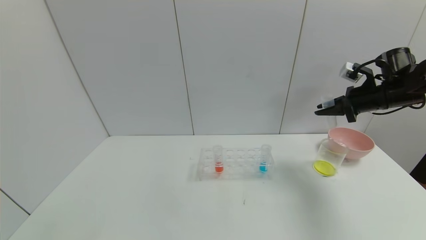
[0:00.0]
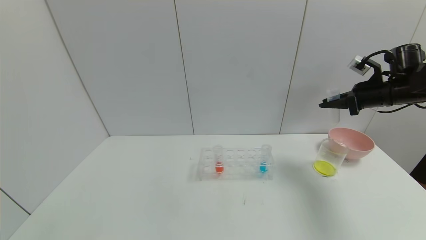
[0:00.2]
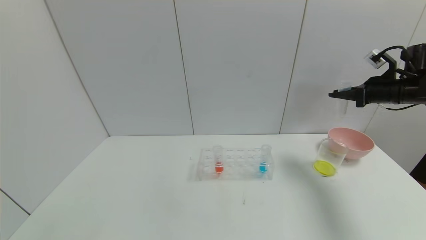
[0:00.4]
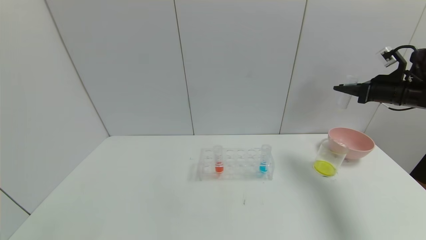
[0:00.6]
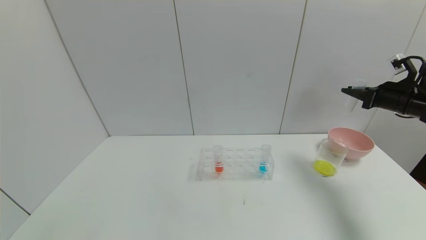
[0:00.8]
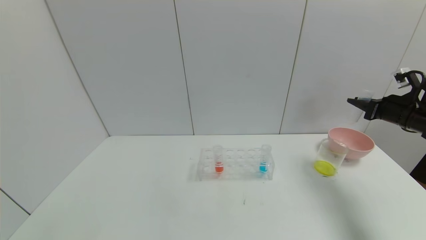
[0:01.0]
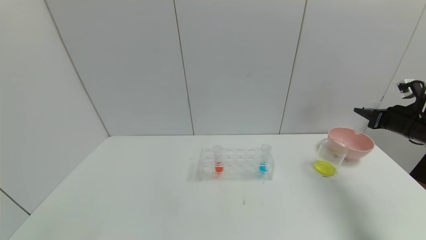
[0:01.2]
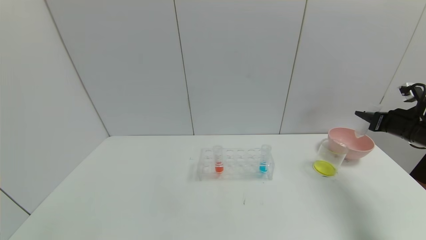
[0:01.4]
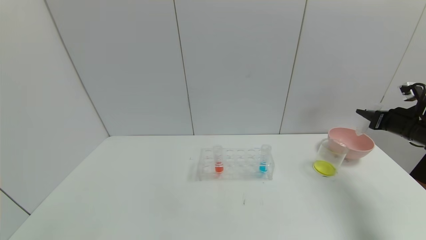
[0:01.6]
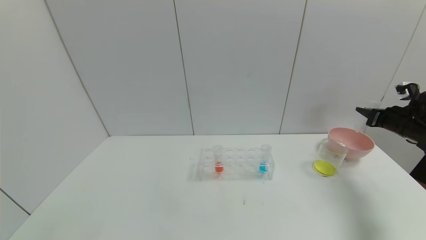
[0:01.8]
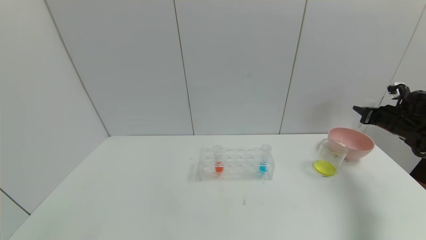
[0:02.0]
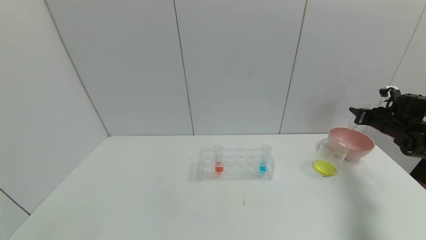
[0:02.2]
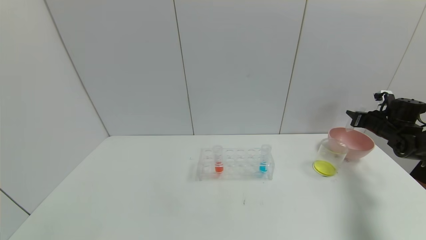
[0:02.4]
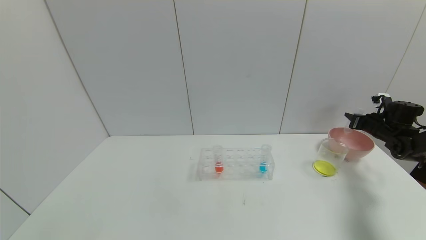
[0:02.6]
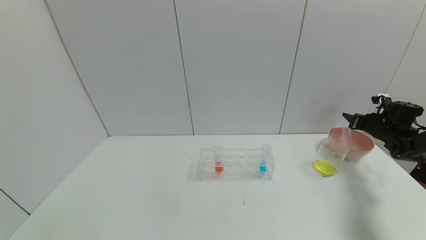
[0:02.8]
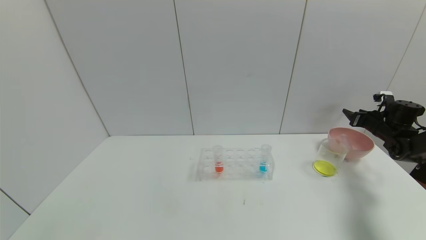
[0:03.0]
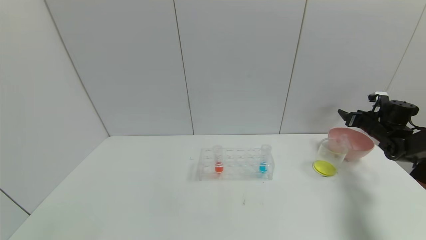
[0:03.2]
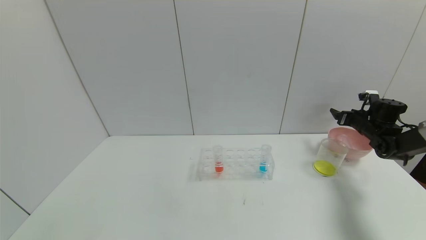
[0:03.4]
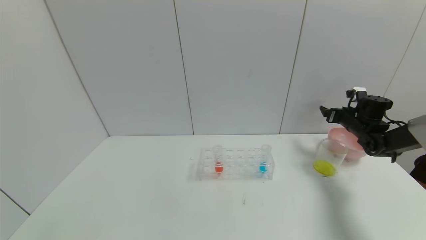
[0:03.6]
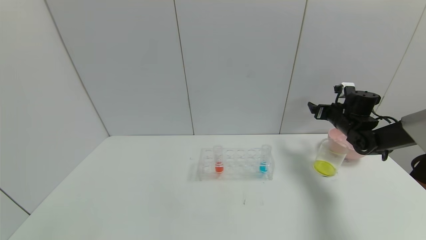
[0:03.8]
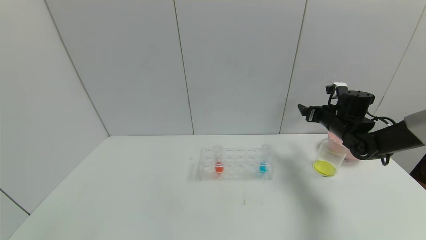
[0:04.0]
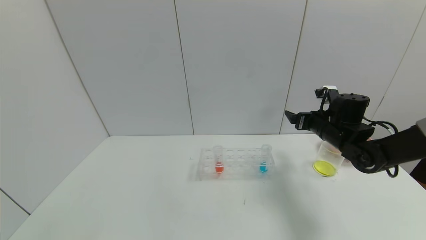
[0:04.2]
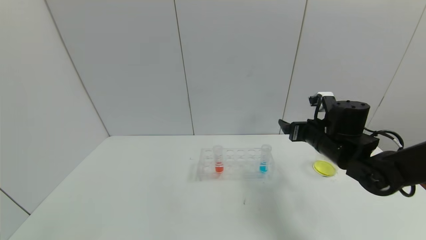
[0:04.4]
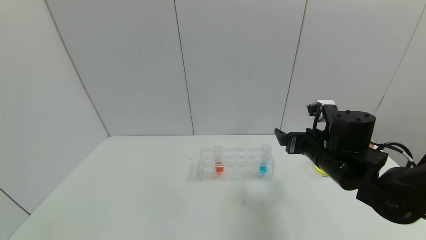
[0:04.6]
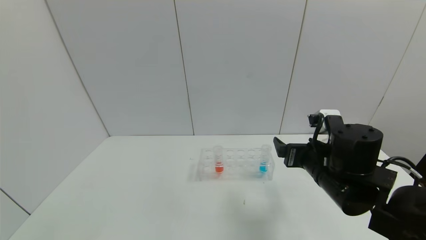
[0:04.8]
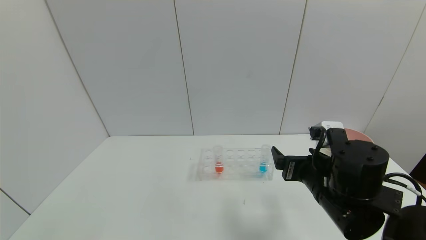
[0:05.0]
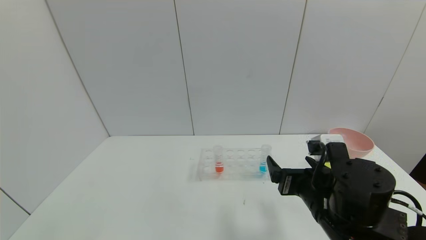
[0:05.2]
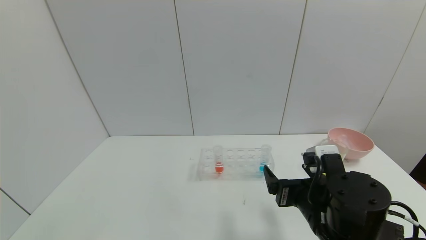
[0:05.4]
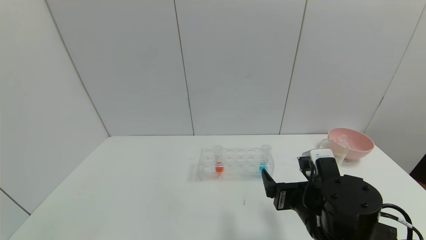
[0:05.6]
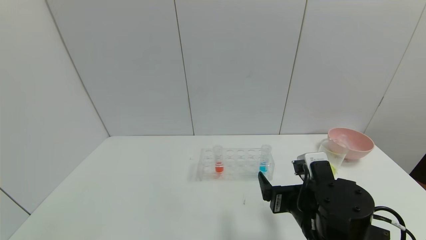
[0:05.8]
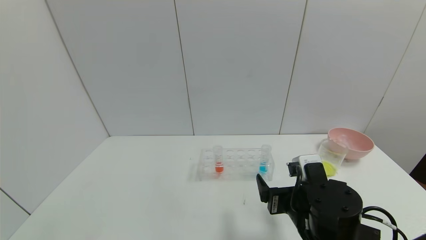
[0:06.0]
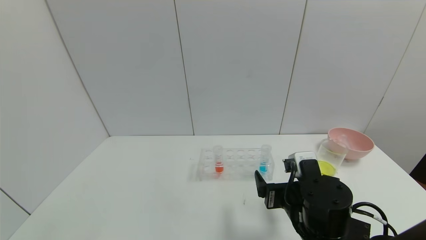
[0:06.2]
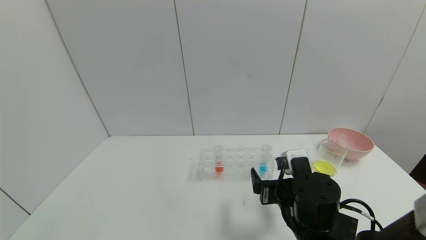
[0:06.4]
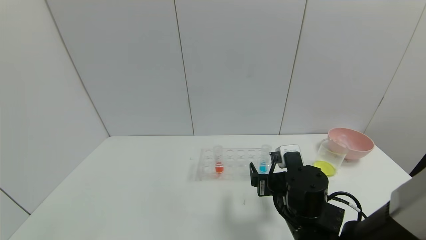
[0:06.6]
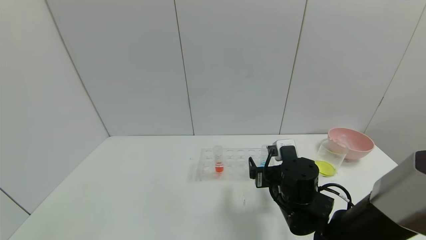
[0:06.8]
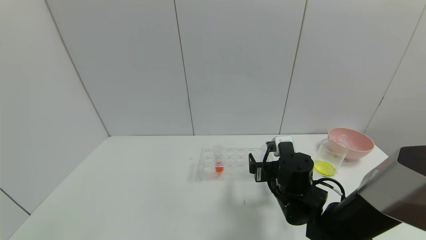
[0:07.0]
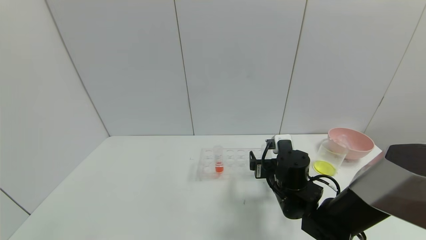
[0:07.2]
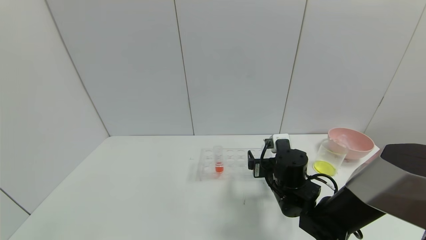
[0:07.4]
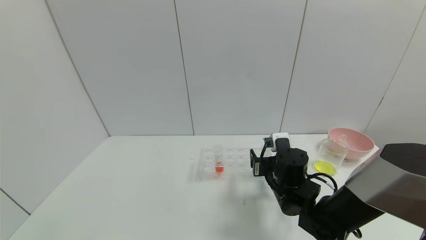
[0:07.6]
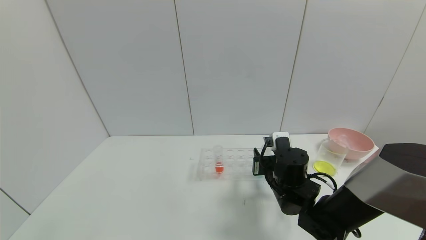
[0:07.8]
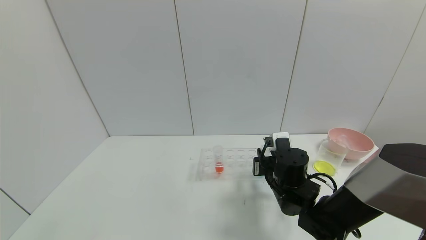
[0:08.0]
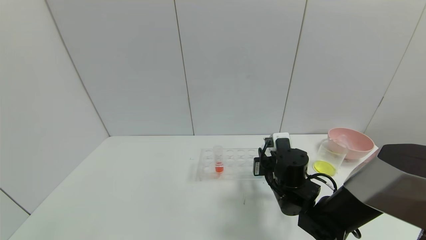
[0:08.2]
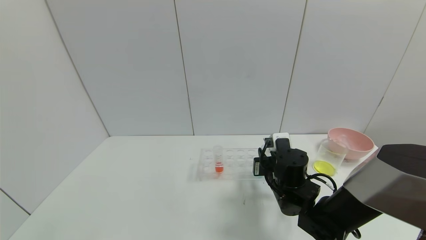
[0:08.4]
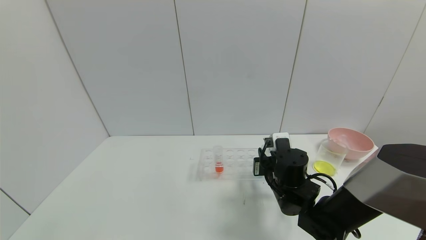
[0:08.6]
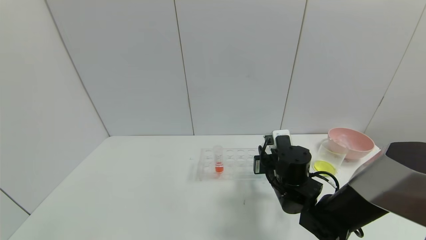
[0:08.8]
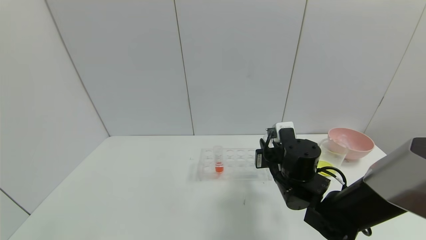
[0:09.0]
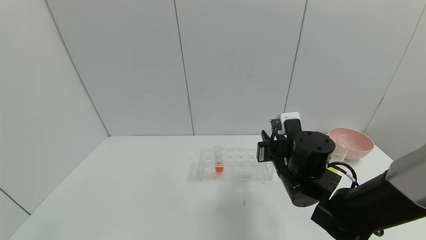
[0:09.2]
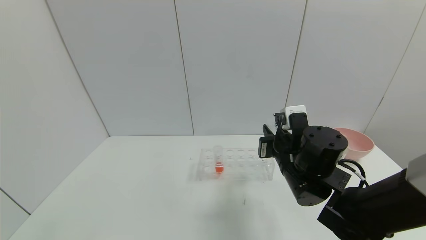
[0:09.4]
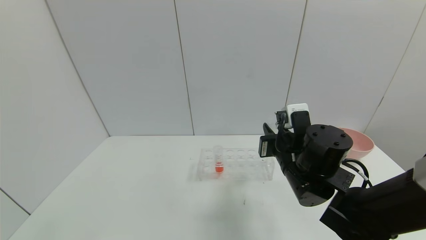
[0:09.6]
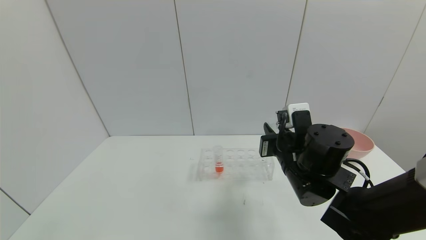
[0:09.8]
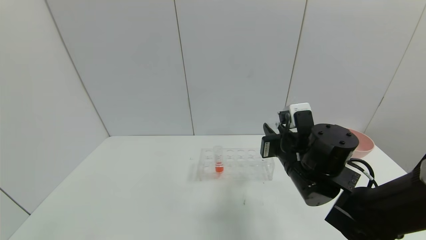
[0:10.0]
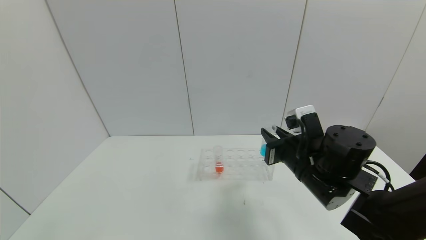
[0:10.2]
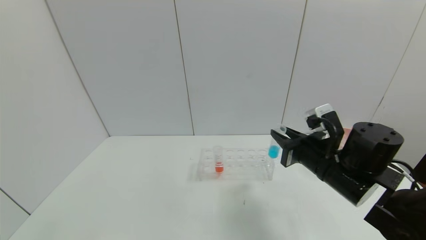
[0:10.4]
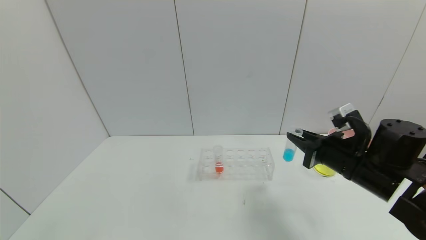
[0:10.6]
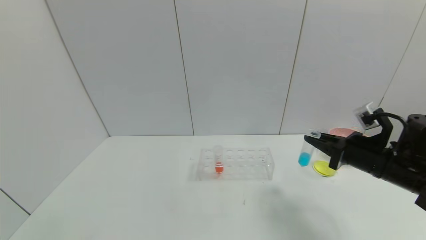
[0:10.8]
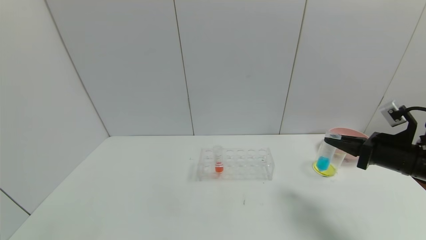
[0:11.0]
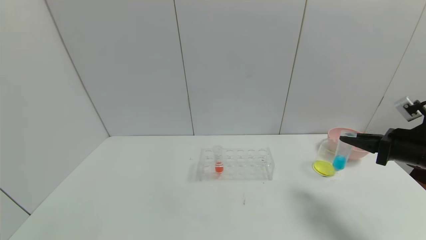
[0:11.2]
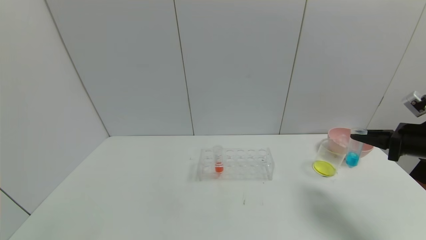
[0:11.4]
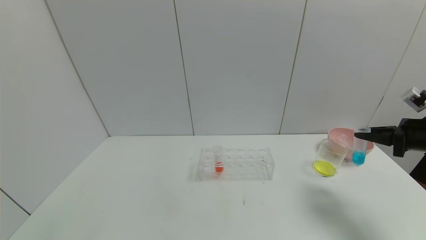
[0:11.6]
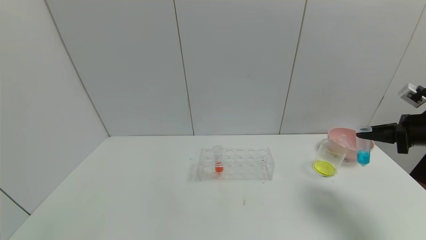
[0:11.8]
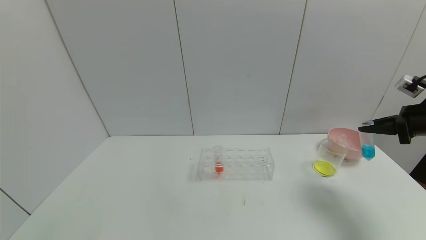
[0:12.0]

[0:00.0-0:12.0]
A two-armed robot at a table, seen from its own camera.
Task of the whole recording: pick up the test tube with yellow pigment and the test tube with blue pigment by grippers and pour them into the beaker.
Step, 0:01.0 to 0:04.4: Place the test tube into the bowl with right gripper.
Step, 0:04.6 to 0:10.8: Pick up the test tube containing the blue reagent with right gripper.
0:00.0 to 0:01.6: The right gripper is displaced to the right and downward by some 10 cm.
0:01.6 to 0:03.0: The right gripper shifts about 10 cm forward and downward, and opens its fingers.
0:03.0 to 0:04.4: The right gripper shifts about 30 cm to the left and backward, and opens its fingers.
0:04.4 to 0:06.0: The right gripper travels backward and to the left by roughly 15 cm.
0:06.0 to 0:07.6: The right gripper goes approximately 10 cm forward.
0:07.6 to 0:09.0: The right gripper closes its fingers.
0:09.0 to 0:10.4: The right gripper is displaced to the right and upward by about 10 cm.
0:10.4 to 0:12.0: The right gripper travels to the right by approximately 25 cm.

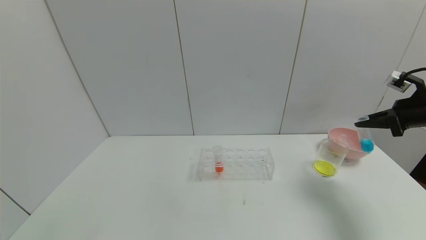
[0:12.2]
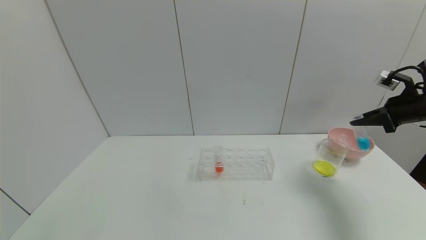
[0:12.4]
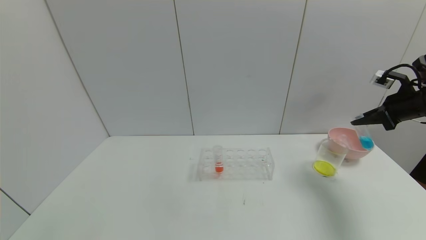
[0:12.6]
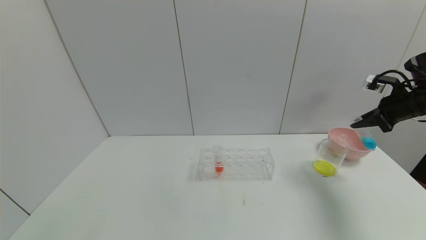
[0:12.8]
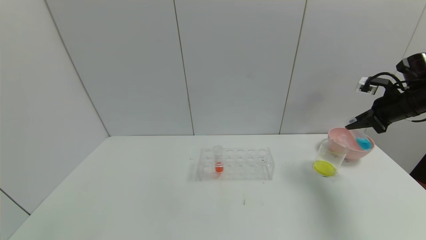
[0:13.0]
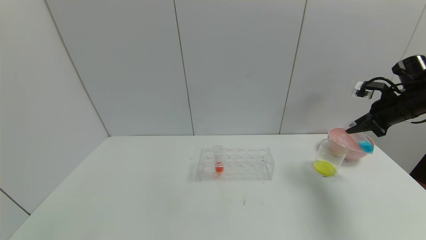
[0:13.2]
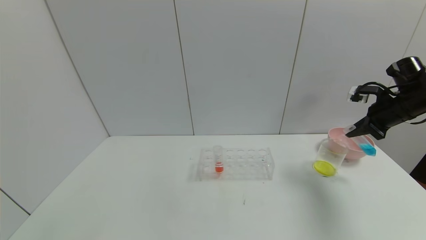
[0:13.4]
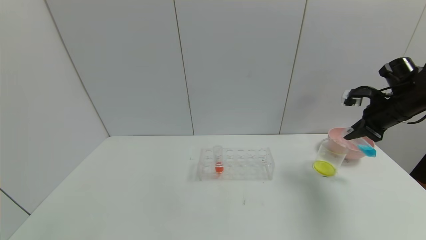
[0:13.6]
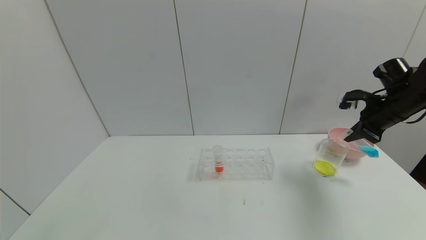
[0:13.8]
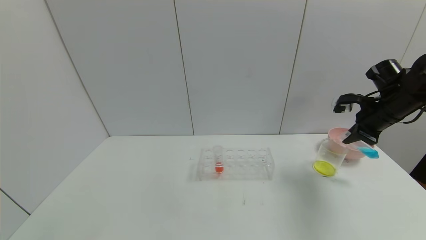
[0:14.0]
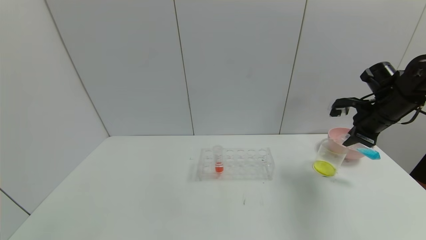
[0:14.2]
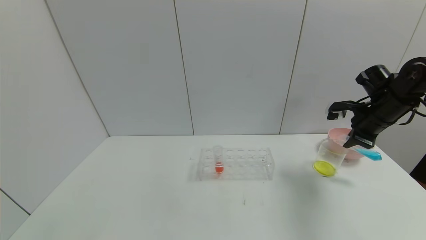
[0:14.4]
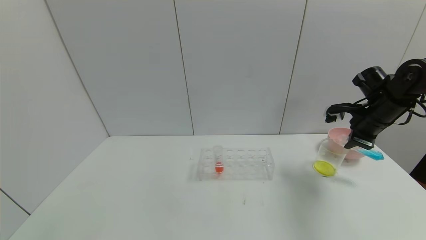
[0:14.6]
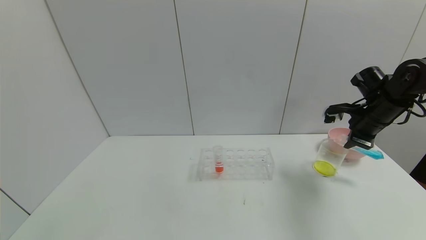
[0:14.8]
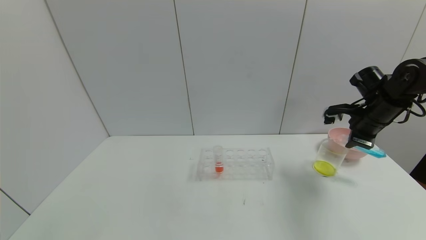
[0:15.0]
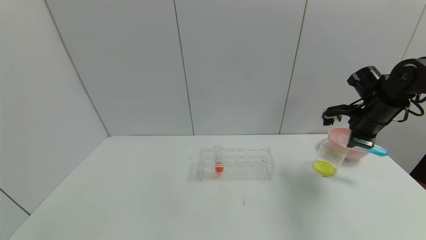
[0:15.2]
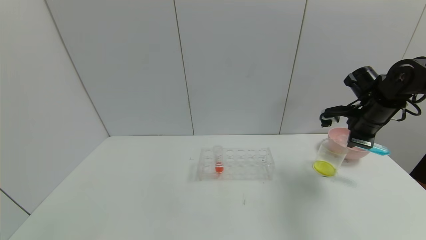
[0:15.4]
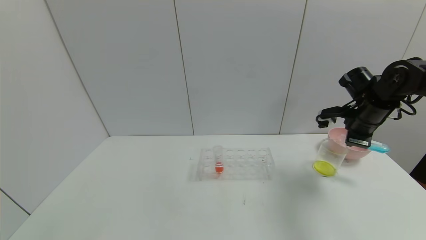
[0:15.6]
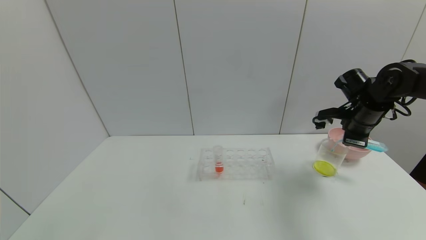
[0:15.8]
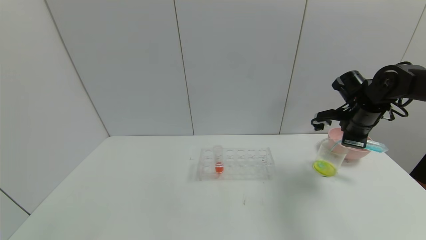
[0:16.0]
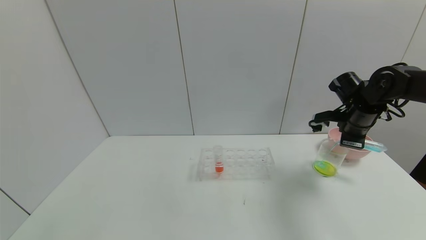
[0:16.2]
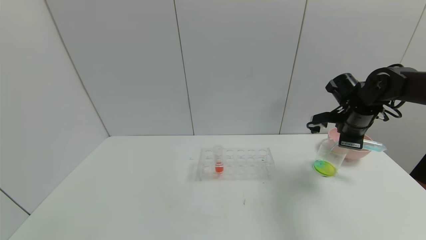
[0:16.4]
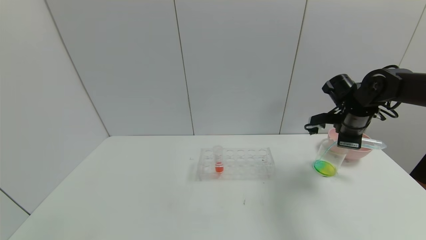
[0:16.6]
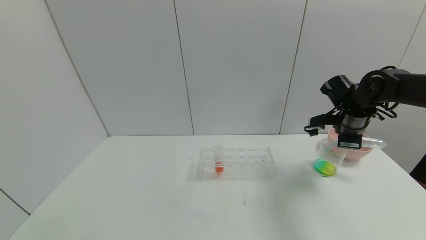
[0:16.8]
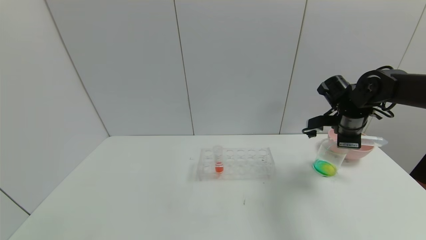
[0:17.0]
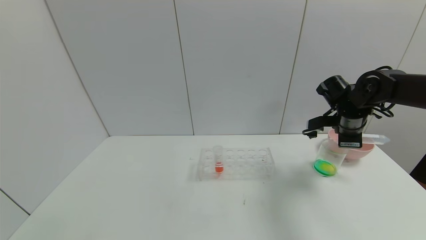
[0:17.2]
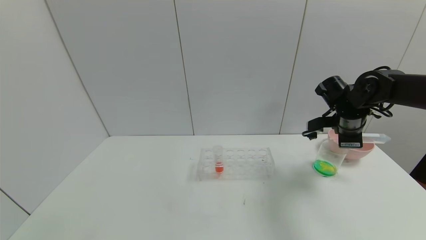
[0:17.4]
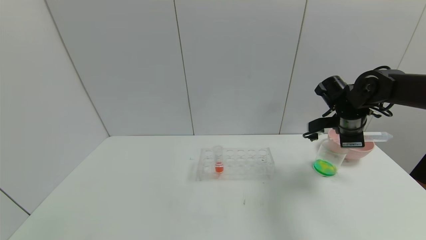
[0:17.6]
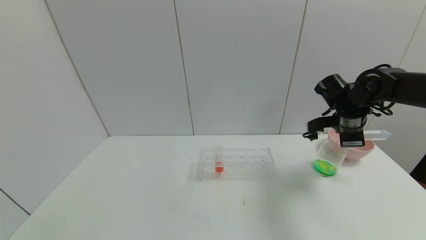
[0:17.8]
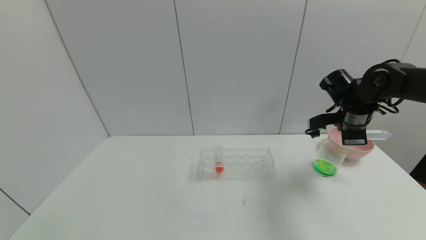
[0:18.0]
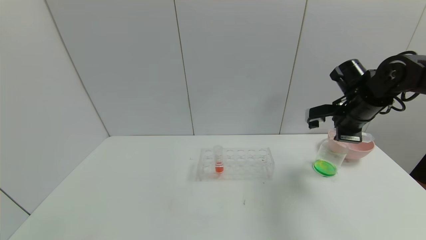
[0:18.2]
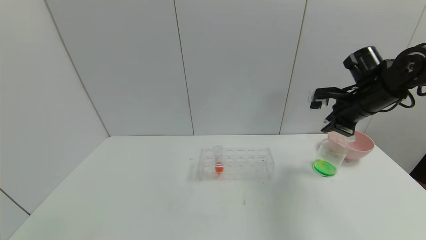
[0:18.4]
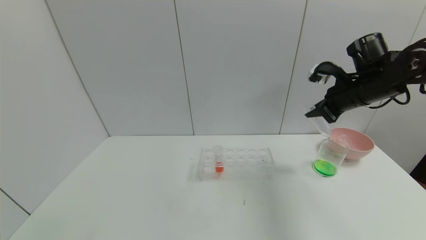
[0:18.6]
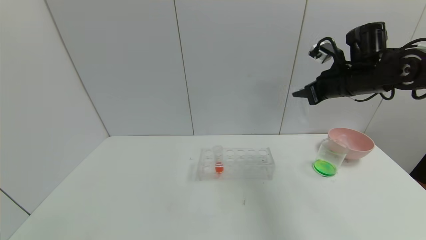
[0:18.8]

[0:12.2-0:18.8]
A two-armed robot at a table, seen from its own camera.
Task of the whole recording: pick up the test tube with yellow pigment and the test tube with blue pigment by grippers and pour them into the beaker.
0:12.2 to 0:13.8: The right gripper is displaced to the left by approximately 5 cm.
0:17.2 to 0:18.8: The right gripper travels upward by some 10 cm.
